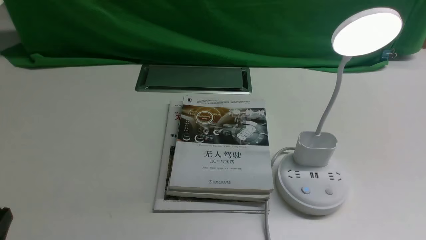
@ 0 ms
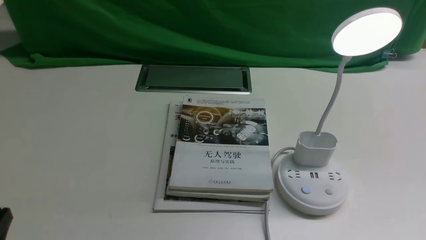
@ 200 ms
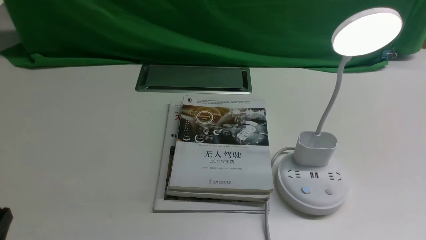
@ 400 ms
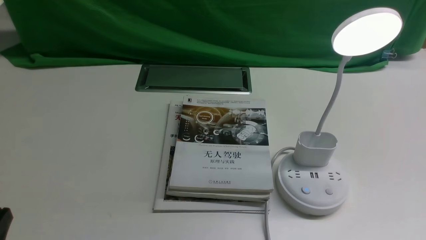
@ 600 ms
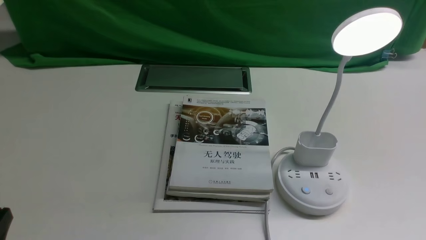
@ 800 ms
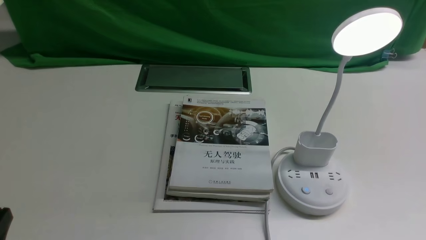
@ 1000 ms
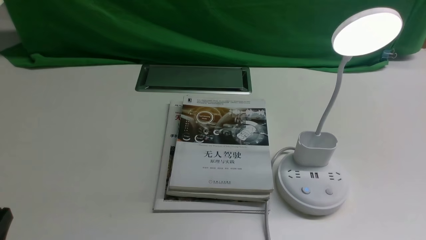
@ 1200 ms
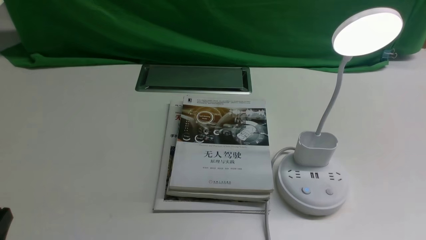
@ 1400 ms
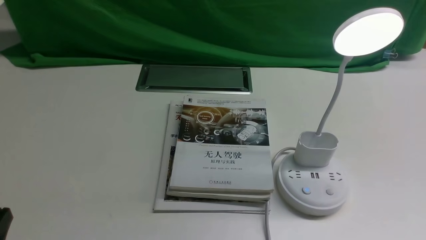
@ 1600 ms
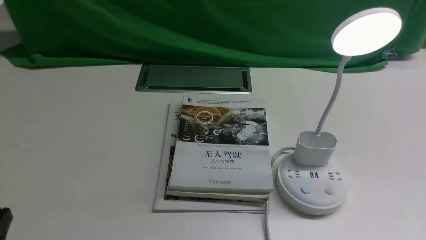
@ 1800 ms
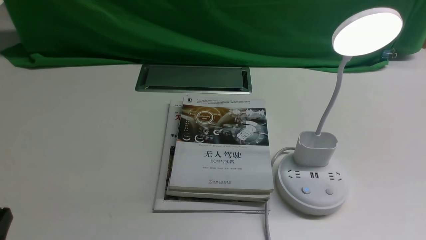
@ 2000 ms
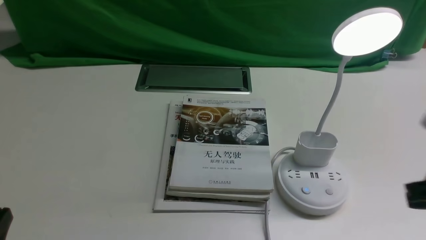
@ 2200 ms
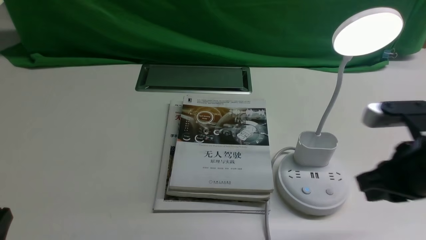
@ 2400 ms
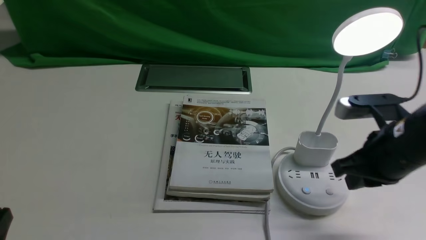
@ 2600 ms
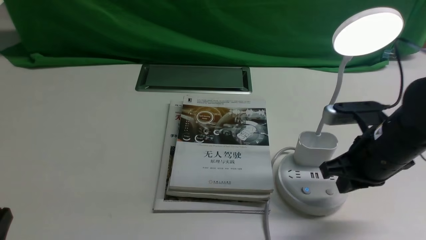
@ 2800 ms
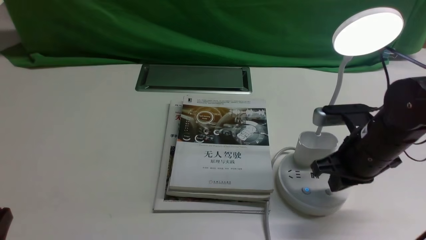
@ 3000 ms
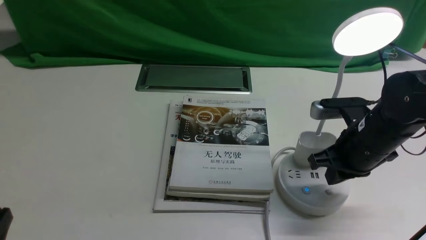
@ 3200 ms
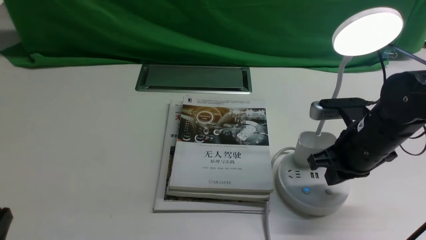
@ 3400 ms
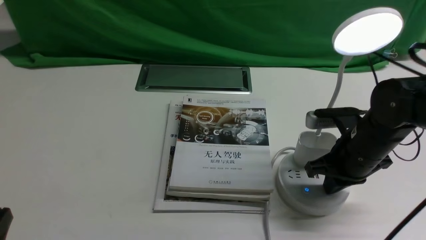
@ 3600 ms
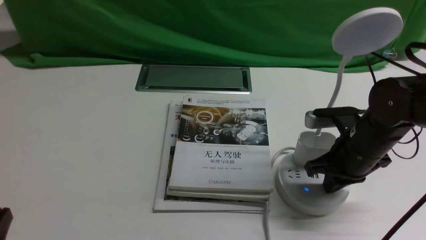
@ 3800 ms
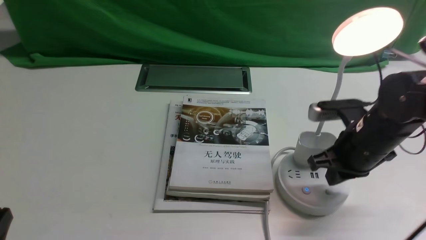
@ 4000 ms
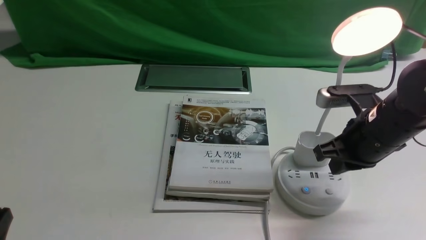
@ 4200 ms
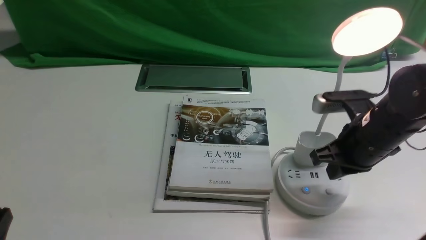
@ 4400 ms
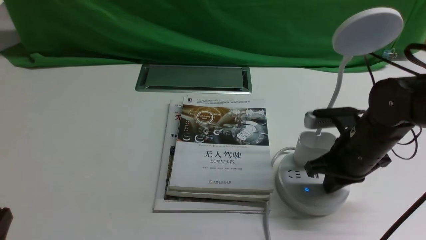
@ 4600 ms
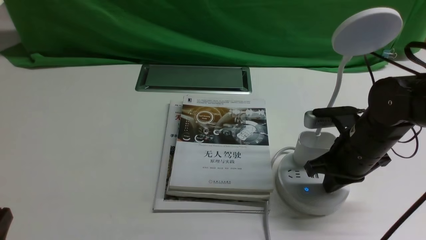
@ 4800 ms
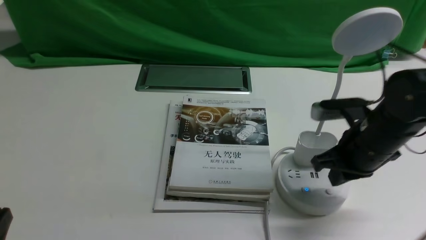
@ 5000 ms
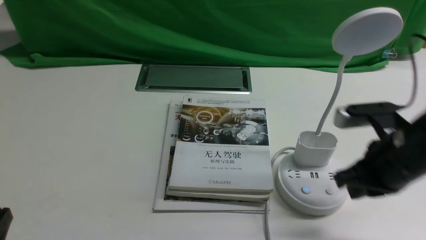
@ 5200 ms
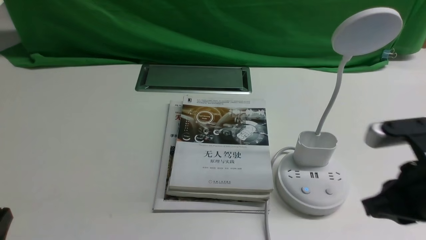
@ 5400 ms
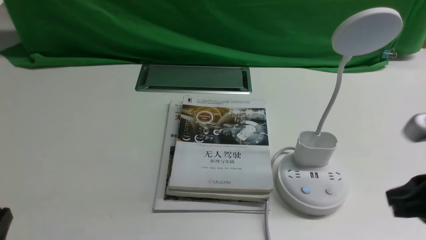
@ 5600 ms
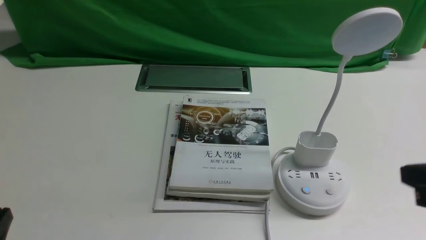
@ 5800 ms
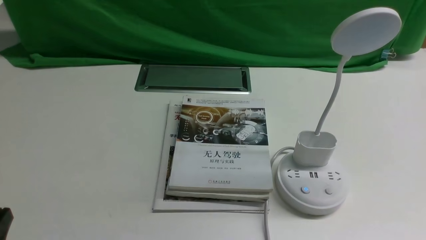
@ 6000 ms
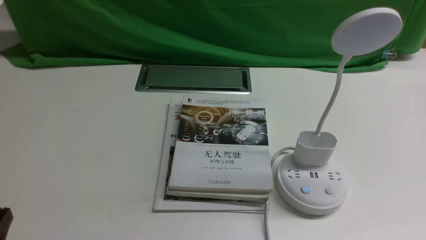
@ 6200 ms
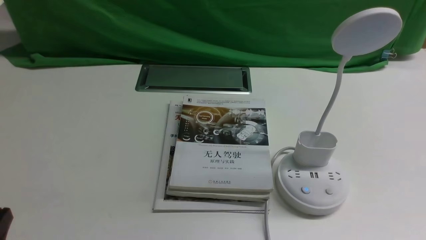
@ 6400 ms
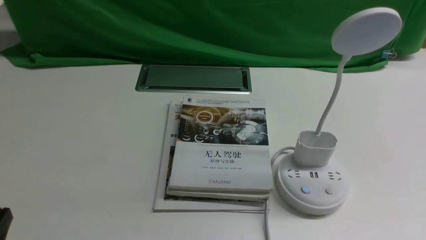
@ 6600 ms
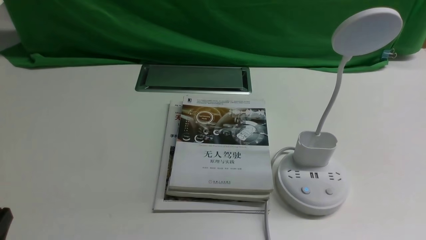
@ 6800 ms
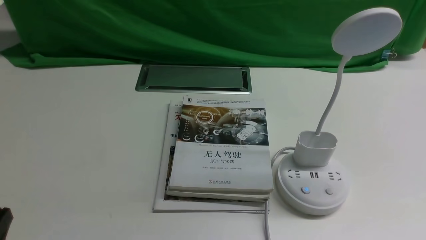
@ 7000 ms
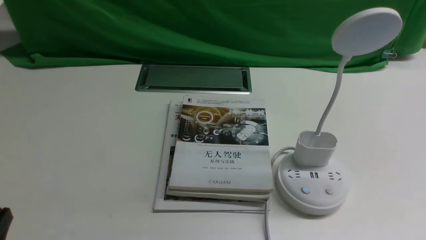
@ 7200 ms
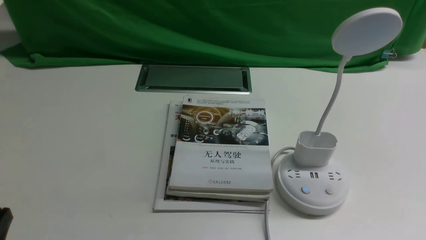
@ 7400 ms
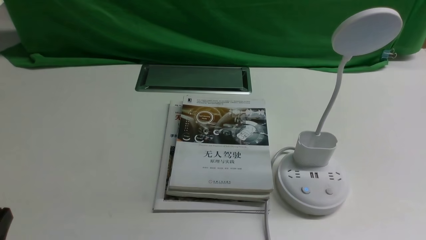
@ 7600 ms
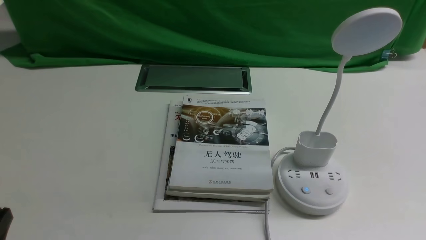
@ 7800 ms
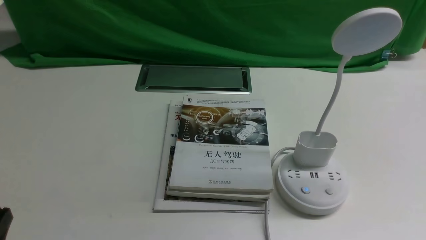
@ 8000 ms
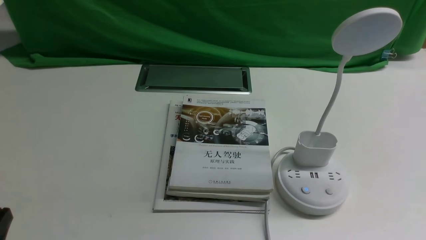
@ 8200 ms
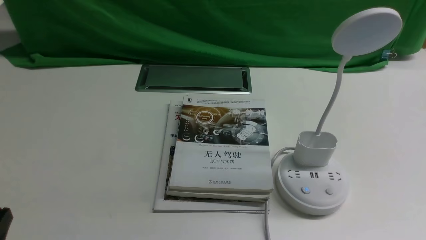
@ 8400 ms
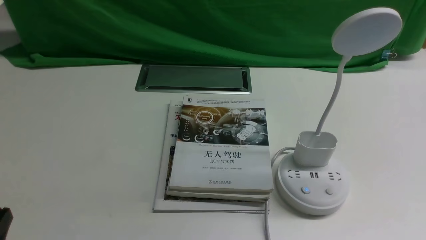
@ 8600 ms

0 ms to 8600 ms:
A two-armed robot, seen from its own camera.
Task of the whole recording: turn off the desk lamp on the white desktop by hand.
Step, 0 ms to 5000 ms: use the right arm to press the button switch on the lamp holder.
1400 ms to 2800 ms: The right gripper heads forward and to the left, covering about 25 cm.
2800 ms to 4400 ms: The right gripper closes up.
4400 ms to 5800 ms: The right gripper moves backward and upward, about 15 cm.
5800 ms to 7200 ms: The right gripper shifts some 15 cm downward, backward and to the right.
7200 ms to 8600 ms: Both grippers stay put.
